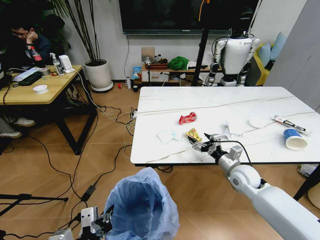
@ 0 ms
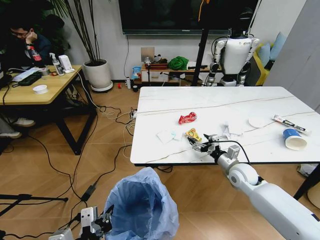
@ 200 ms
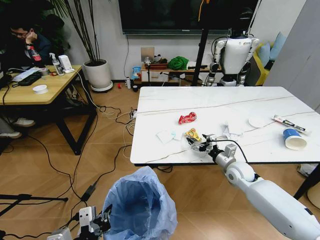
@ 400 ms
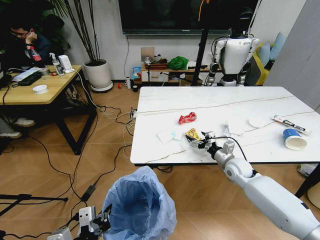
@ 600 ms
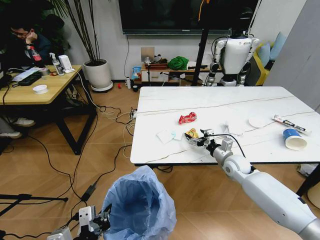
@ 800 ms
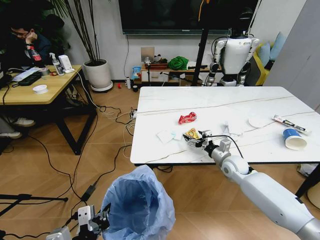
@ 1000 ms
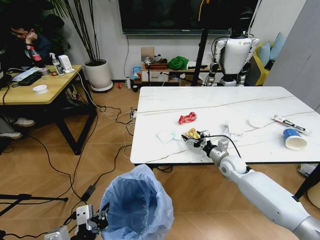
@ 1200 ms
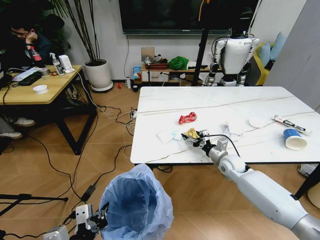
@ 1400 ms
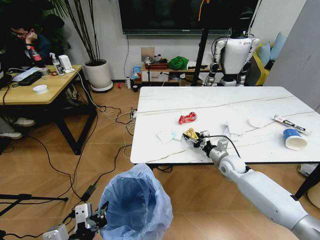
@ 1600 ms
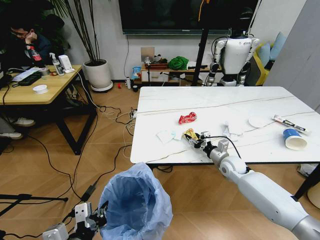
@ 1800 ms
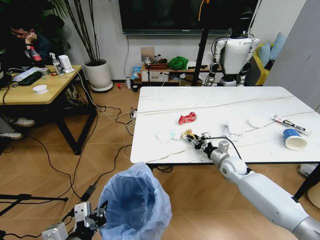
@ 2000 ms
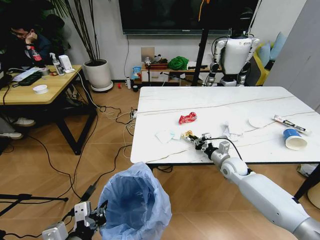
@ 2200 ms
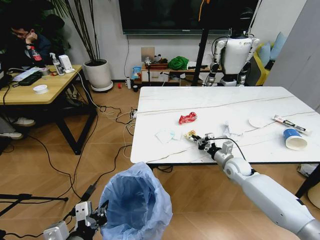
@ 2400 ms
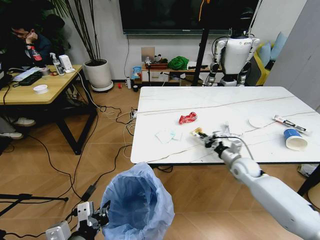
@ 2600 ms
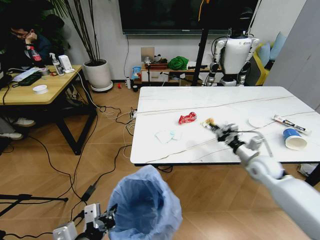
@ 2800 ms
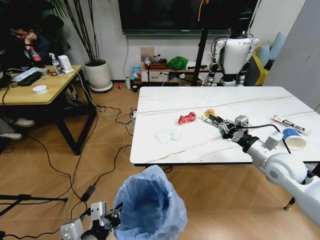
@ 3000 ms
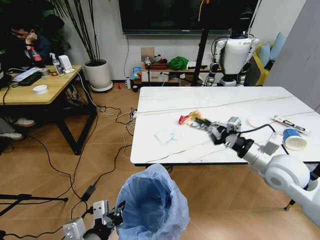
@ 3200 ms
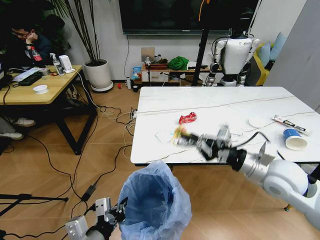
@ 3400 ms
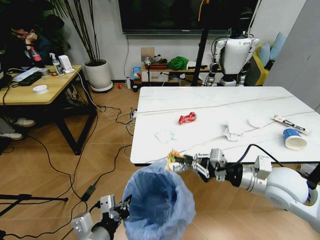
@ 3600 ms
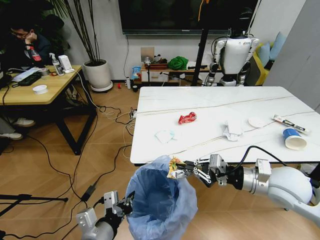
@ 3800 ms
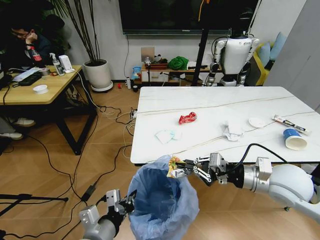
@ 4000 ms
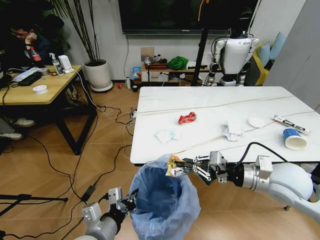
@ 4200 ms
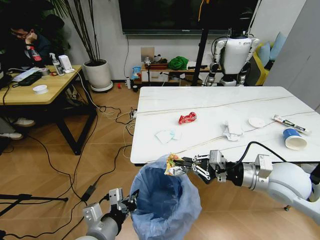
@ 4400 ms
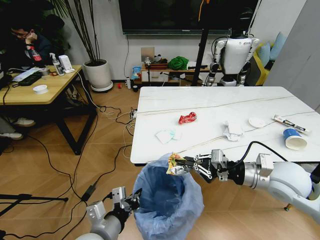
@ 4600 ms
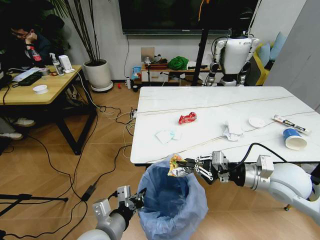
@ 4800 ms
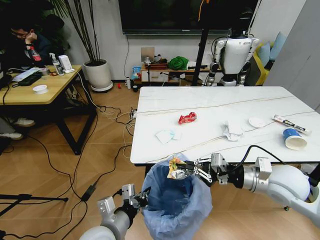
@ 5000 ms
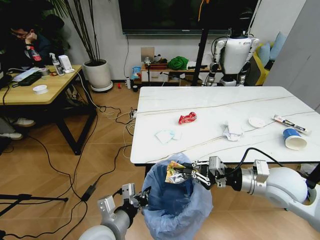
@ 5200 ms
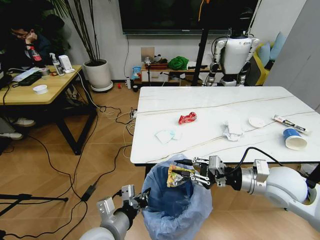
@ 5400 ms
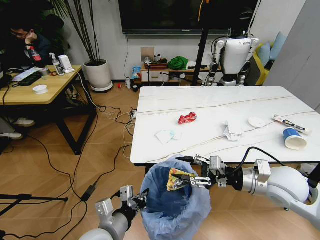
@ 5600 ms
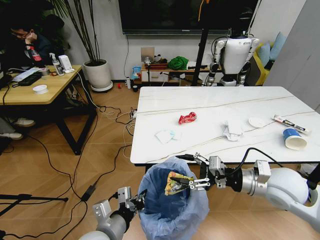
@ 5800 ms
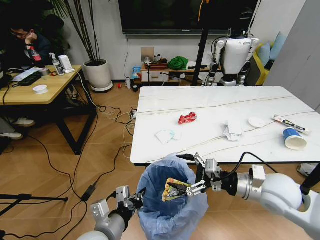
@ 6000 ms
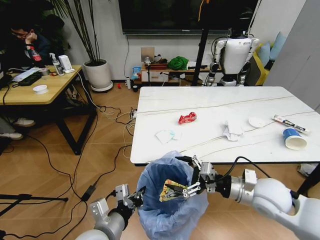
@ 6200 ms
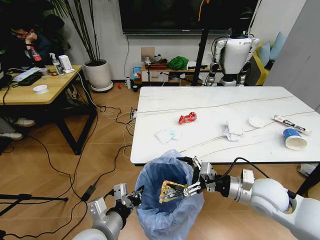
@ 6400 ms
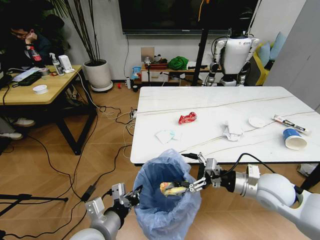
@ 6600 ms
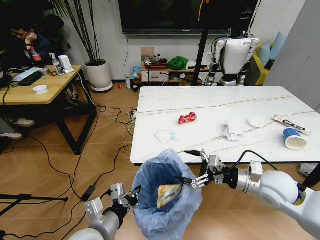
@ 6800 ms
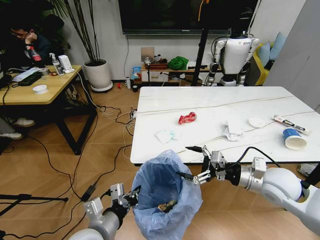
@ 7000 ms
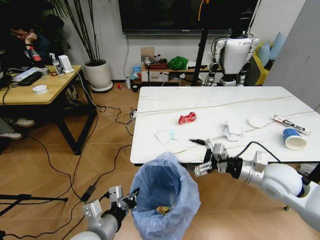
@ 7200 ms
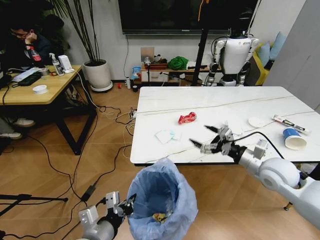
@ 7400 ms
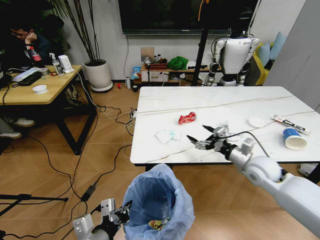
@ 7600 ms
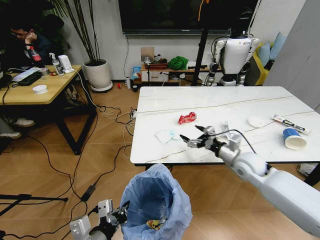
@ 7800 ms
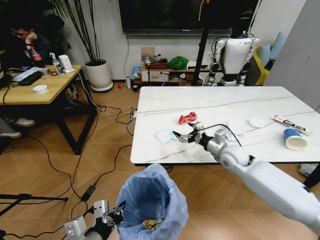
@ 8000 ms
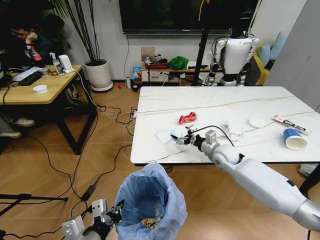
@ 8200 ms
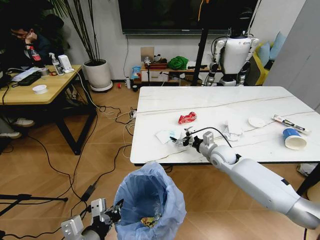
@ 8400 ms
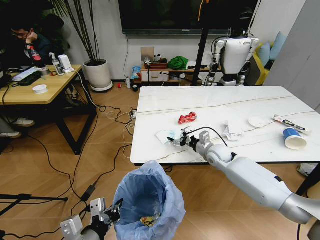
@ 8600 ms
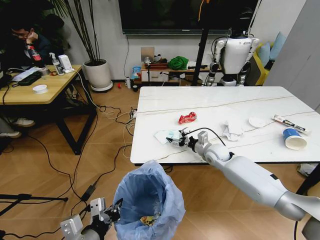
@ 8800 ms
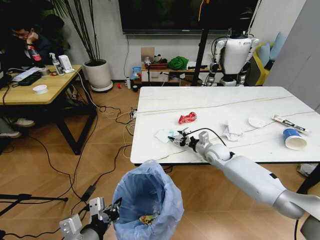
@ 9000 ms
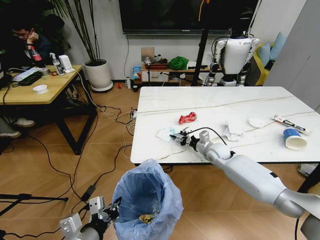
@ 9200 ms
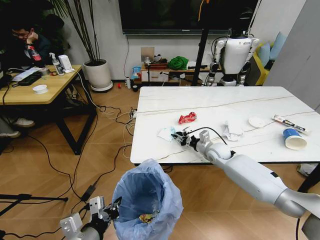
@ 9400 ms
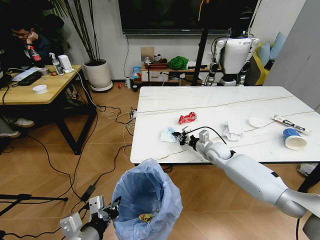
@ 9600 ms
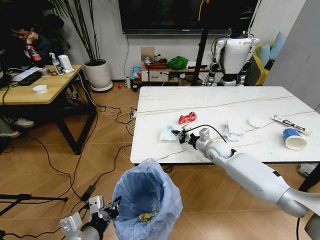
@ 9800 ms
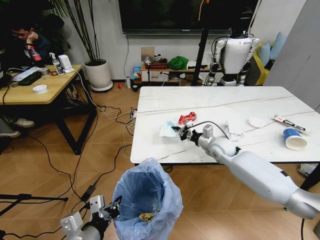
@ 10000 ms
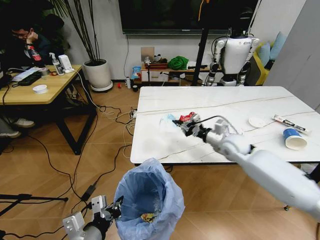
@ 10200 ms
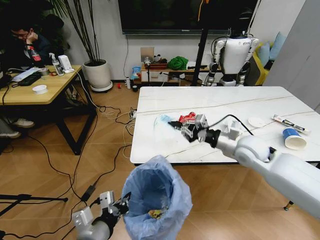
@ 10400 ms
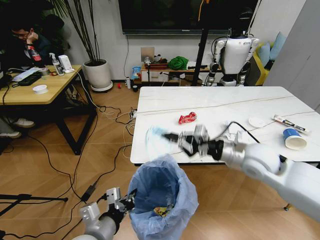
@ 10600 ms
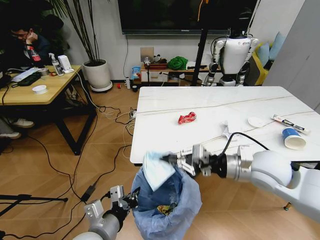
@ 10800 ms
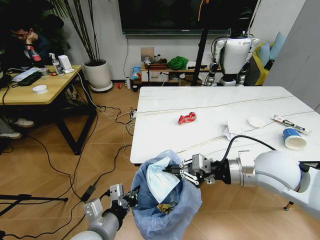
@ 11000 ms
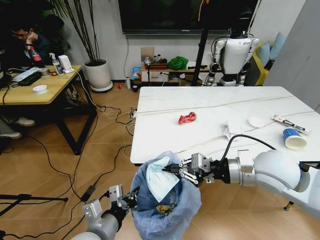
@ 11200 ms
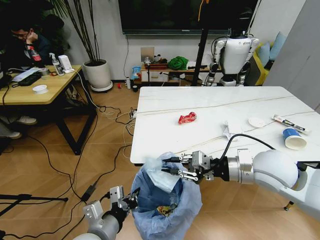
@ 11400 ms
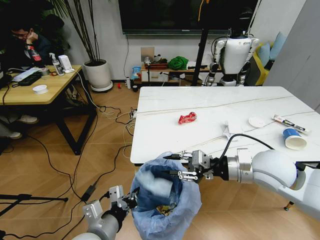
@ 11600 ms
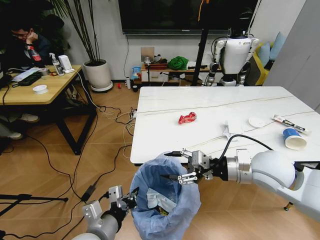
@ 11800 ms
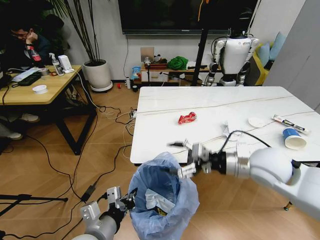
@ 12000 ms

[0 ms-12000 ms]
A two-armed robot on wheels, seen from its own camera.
Task of the whole recording: Pick up the trash bin and place the trash from the table into it.
0 ms to 1600 ms: The right gripper travels forward by approximately 5 cm.
1600 ms to 3000 ms: The right gripper heads upward, backward and to the right, covering about 20 cm, and closes its fingers.
3000 ms to 4400 ms: The left gripper ends up roughly 5 cm from where it was; the right gripper shifts about 10 cm backward and to the left.
4400 ms to 6000 ms: The right gripper opens its fingers.
6000 ms to 7600 ms: The right gripper is displaced forward and downward by about 10 cm.
7600 ms to 9000 ms: The right gripper travels forward, downward and to the left by about 20 cm.
9000 ms to 10400 ms: The right gripper travels upward and backward by roughly 15 cm, and closes.
10400 ms to 12000 ms: The right gripper moves backward, approximately 10 cm, and opens up.

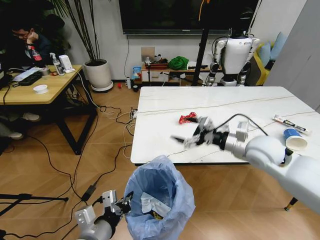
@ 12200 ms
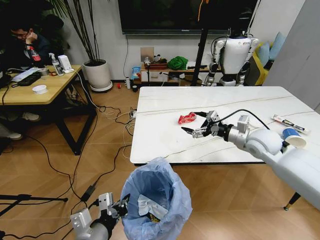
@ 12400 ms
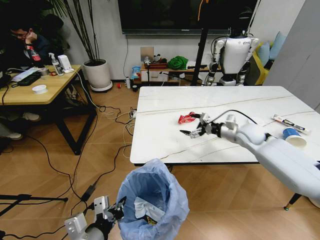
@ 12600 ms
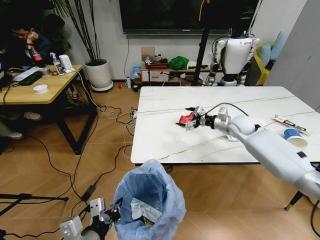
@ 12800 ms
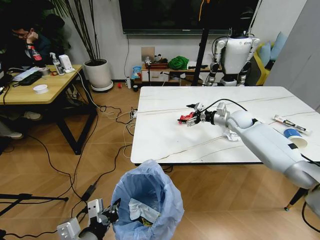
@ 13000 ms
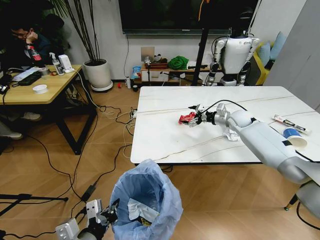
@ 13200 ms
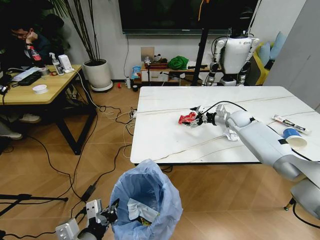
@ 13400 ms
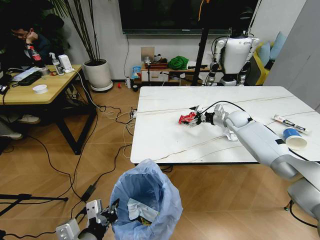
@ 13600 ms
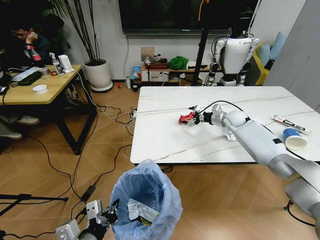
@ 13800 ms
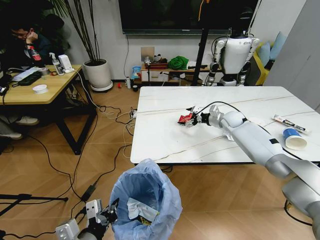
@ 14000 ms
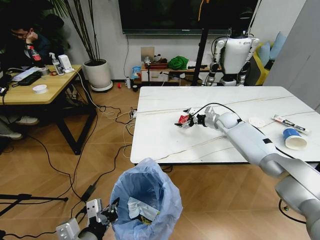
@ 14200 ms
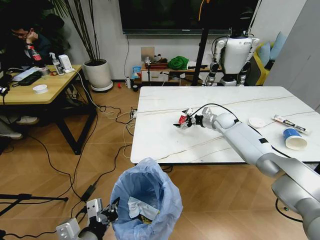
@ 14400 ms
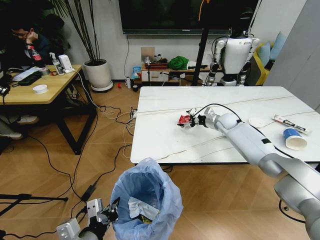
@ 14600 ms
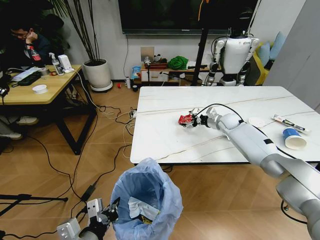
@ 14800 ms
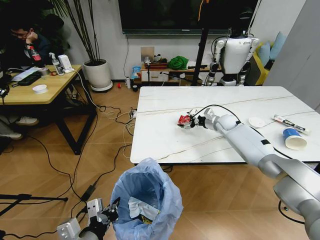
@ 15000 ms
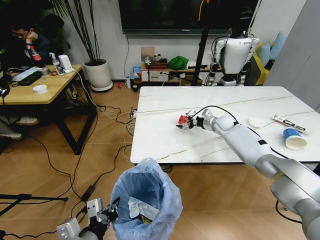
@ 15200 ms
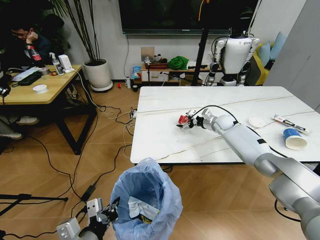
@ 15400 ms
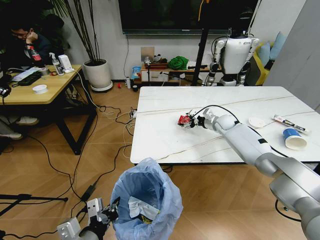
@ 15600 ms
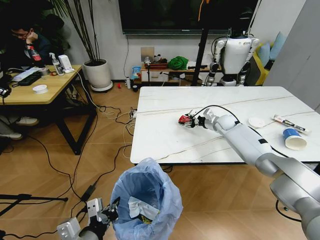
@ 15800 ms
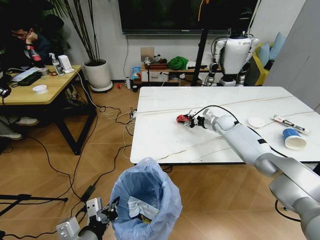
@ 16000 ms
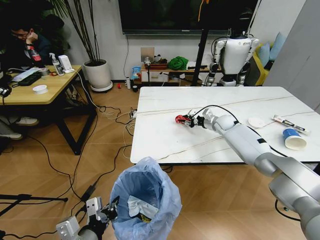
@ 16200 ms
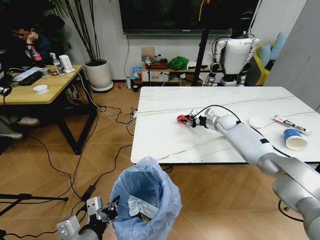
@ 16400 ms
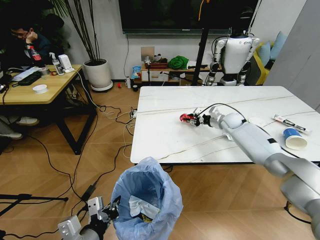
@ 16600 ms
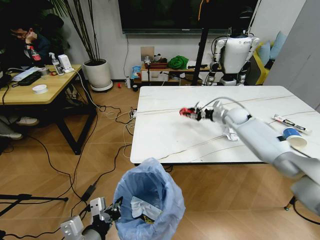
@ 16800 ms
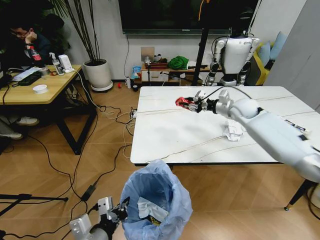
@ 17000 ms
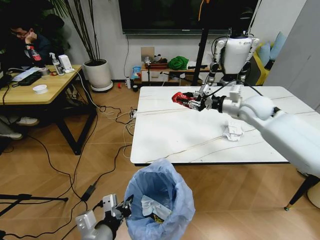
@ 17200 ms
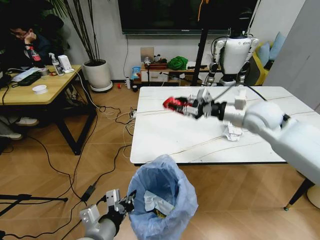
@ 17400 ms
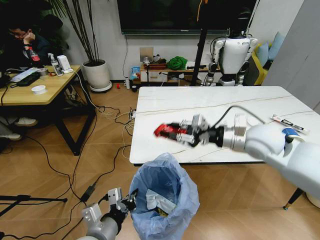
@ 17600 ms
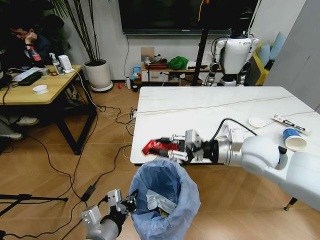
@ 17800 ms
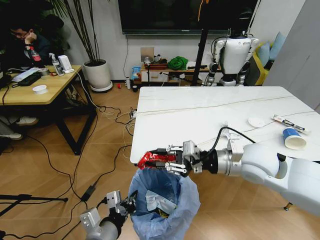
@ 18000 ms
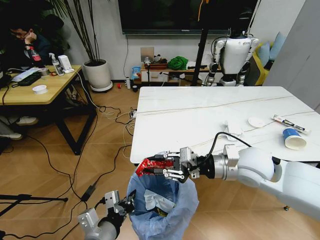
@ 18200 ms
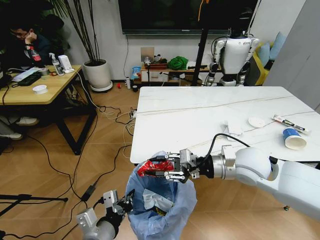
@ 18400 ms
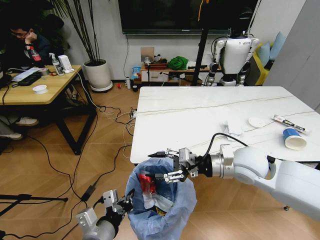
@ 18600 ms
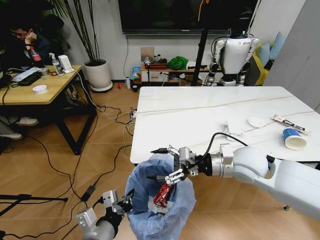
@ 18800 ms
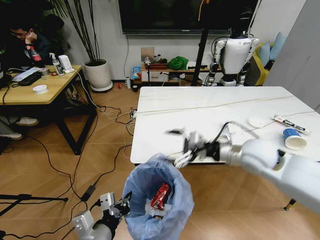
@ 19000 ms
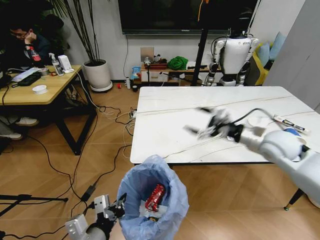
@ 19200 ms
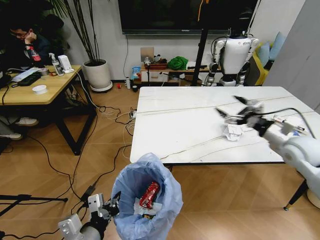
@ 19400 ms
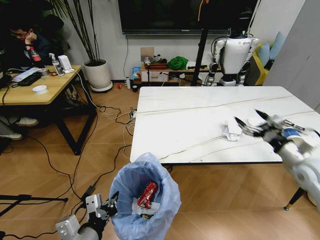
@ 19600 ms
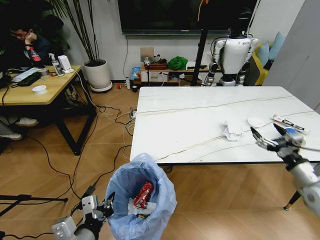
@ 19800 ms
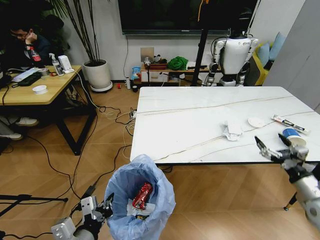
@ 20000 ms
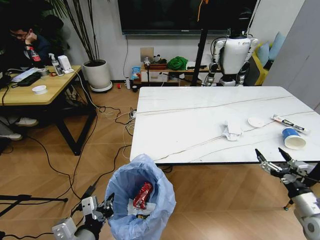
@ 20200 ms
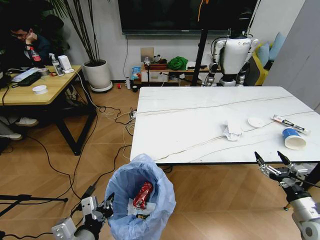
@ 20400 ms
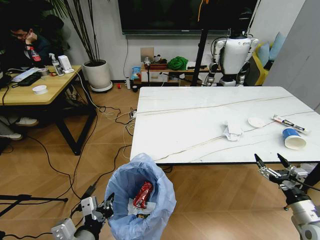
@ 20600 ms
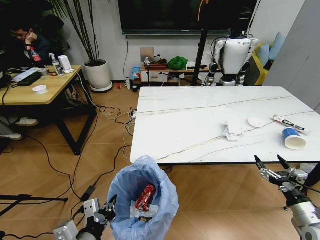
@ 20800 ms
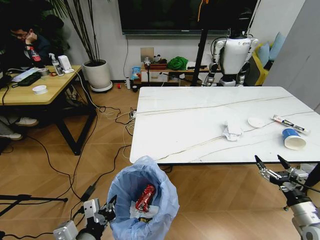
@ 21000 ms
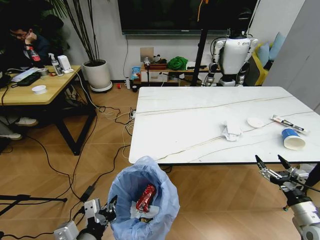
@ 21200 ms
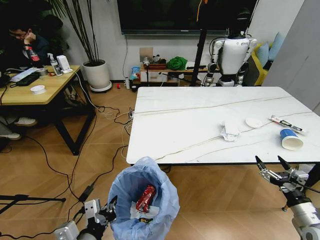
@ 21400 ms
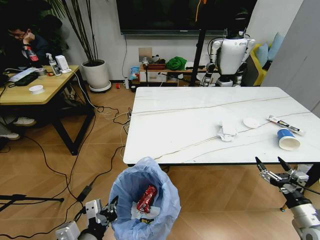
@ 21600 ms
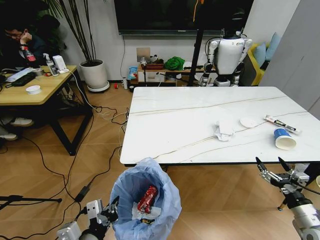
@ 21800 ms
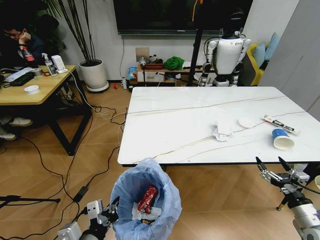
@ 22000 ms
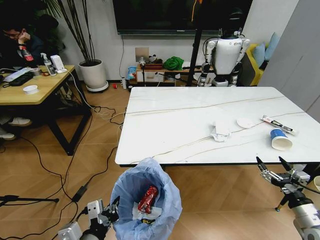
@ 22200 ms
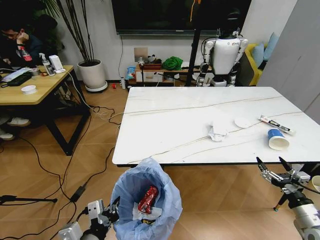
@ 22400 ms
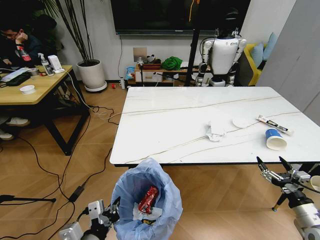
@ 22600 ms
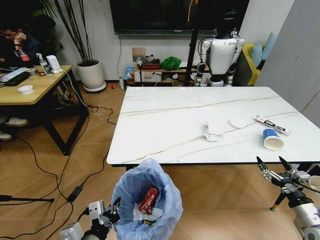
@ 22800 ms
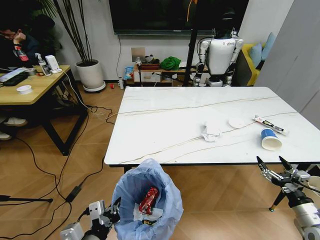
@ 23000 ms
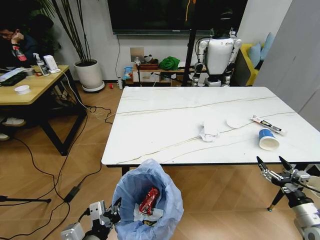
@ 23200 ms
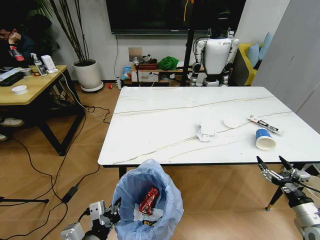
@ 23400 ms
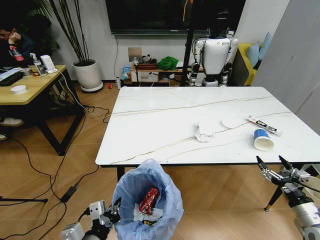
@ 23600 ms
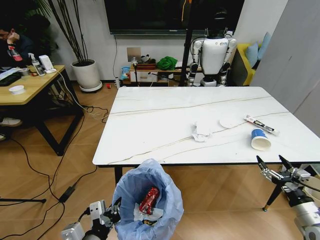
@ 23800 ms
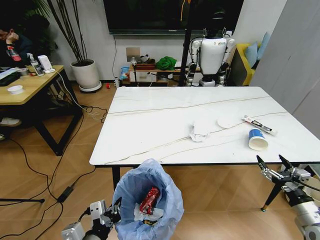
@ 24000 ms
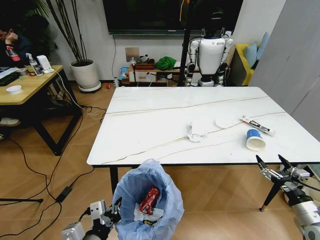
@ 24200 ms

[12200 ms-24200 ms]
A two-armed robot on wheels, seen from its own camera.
Task of the whole recording: Pick up the trash bin and place the trash from the table into it.
12200 ms to 13800 ms: The right gripper goes roughly 25 cm forward.
13800 ms to 15200 ms: The right gripper moves some 5 cm.
15200 ms to 16600 ms: The right gripper closes its fingers.
16600 ms to 18200 ms: The right gripper is displaced backward and upward by some 30 cm.
18200 ms to 19800 ms: The right gripper travels to the right and downward by about 25 cm, and opens its fingers.
19800 ms to 21200 ms: The right gripper shifts approximately 10 cm backward and downward.
